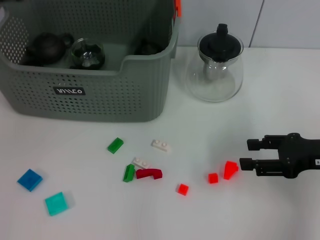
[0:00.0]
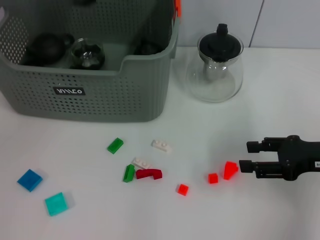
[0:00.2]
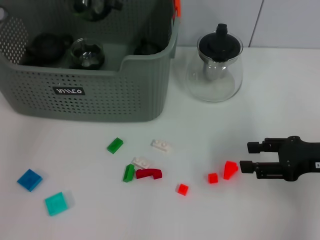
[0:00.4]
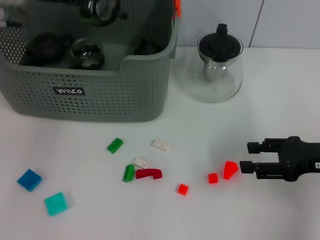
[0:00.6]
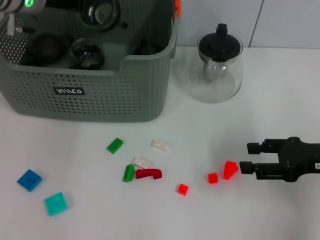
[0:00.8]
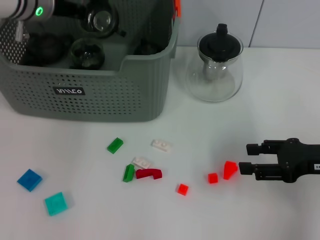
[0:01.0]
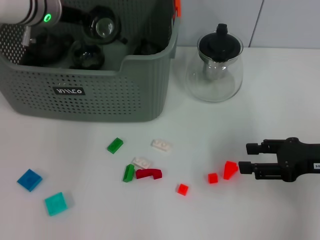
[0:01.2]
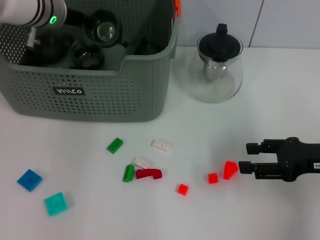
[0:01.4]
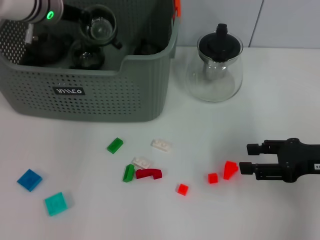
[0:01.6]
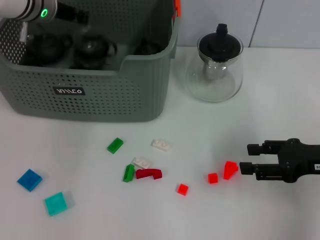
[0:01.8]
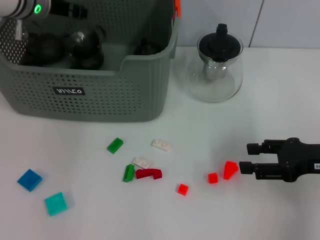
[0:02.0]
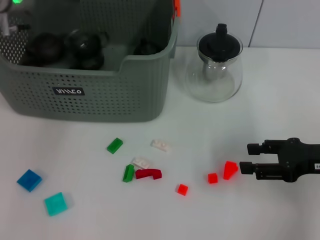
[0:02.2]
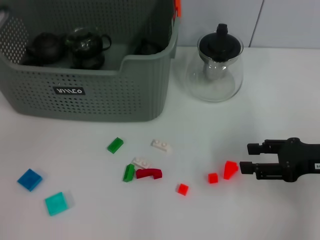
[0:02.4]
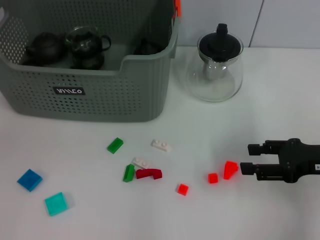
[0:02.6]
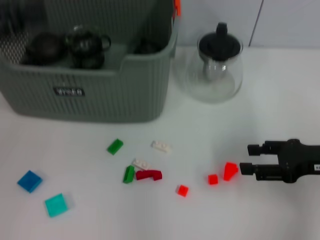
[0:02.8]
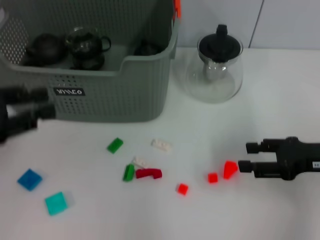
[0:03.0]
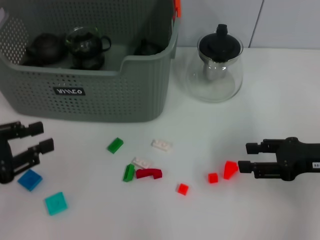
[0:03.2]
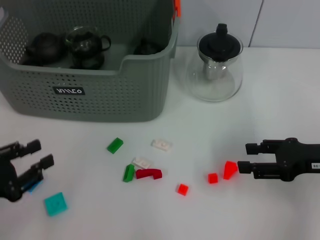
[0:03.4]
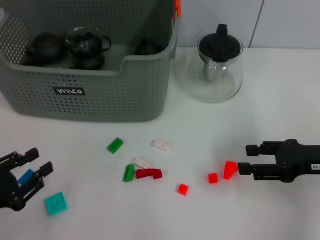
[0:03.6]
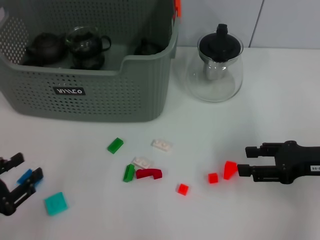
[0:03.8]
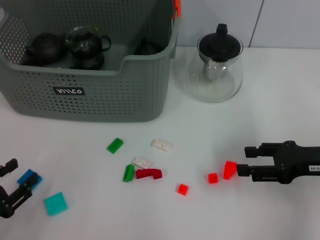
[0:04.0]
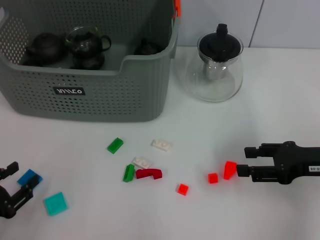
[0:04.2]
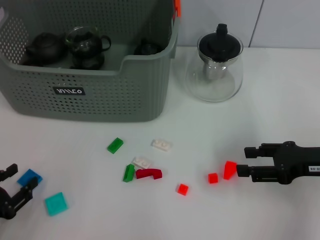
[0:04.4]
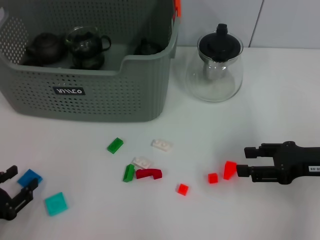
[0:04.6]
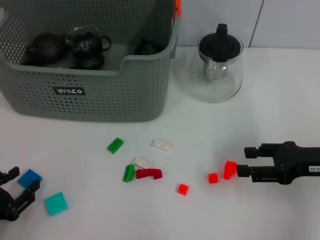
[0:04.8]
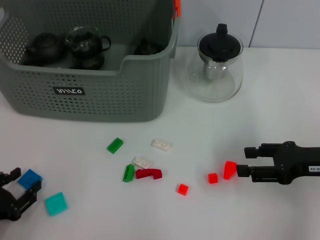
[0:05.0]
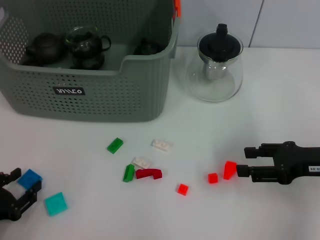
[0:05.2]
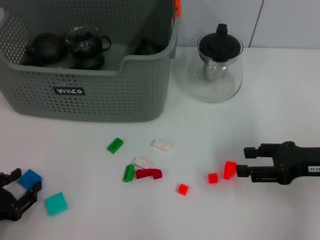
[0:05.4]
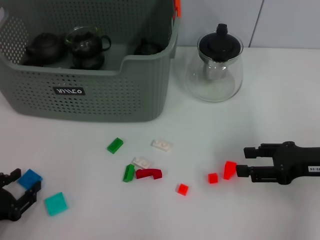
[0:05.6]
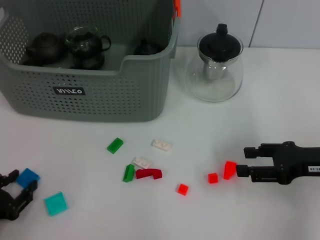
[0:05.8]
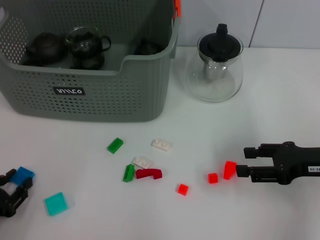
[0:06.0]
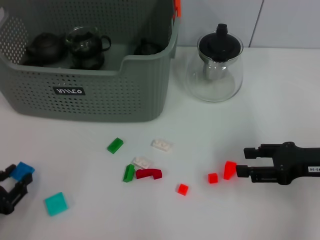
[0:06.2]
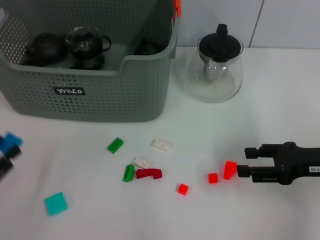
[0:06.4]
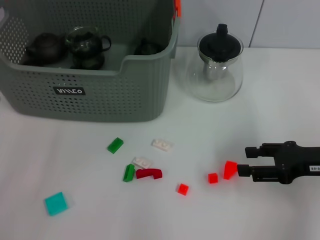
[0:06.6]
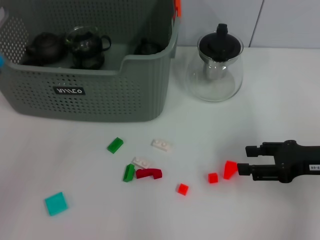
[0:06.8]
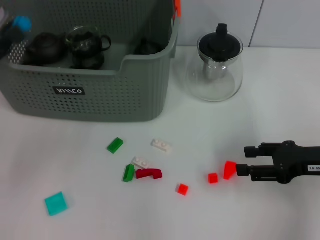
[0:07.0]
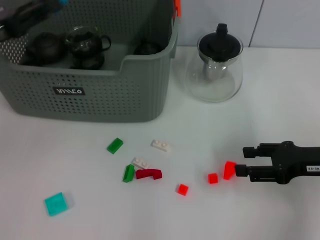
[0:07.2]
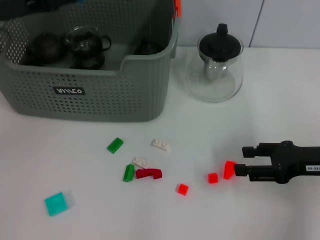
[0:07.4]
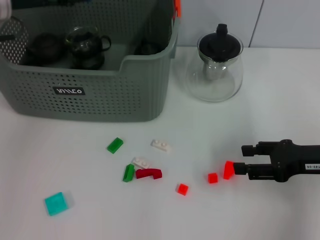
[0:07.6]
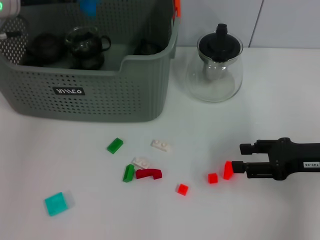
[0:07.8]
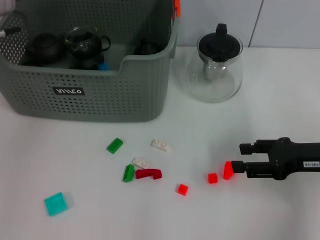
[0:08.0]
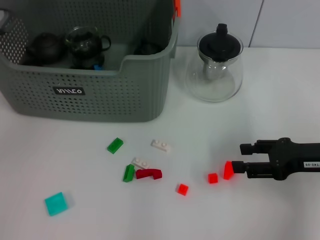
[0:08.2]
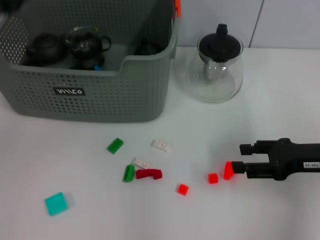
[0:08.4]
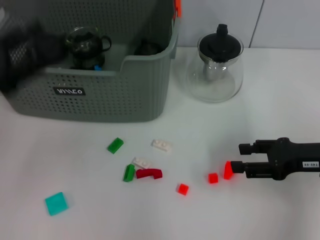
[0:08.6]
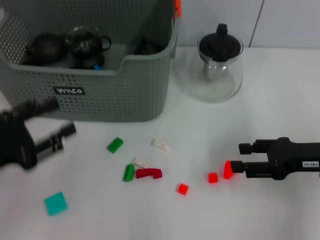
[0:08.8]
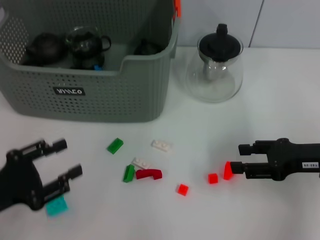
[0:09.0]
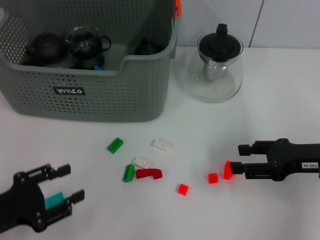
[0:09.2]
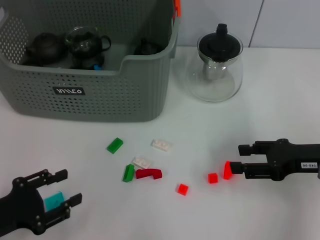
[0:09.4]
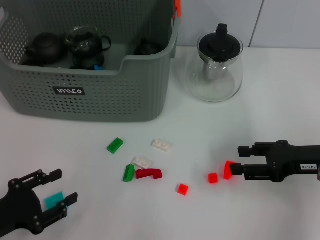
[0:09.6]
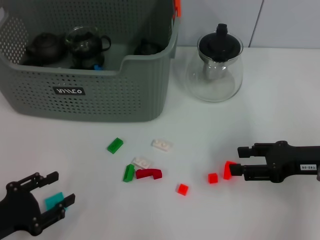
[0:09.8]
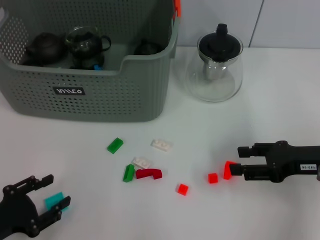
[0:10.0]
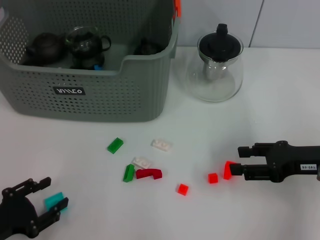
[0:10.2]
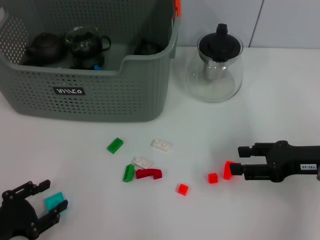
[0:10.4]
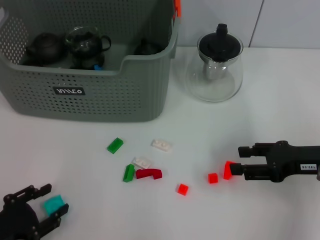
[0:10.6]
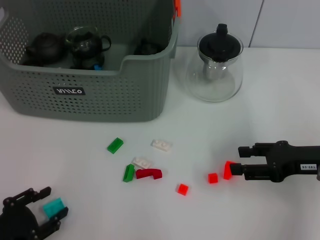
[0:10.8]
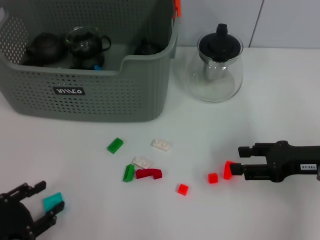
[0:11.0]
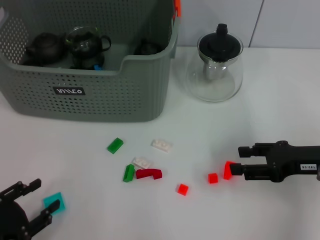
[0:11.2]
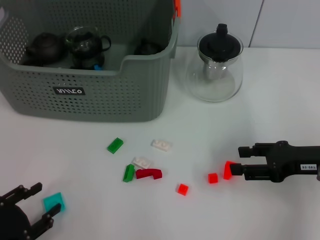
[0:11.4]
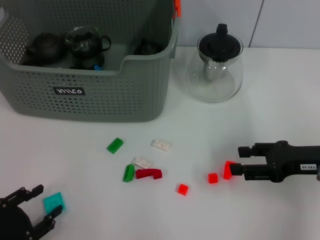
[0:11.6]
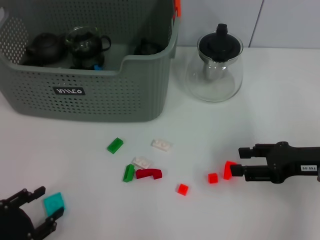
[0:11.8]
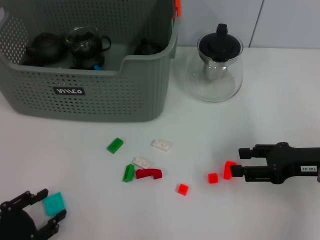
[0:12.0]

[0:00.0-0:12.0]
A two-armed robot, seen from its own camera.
Task of the whole recording: pick up the teacup on the table and place it into the storage bin, pick up the block on the table and place it into the storage bin.
Step, 0:00.0 to 0:06.0: Grasp the dark blue block with left gripper.
Step, 0:06.2 to 0:08.4: Place the dark blue block in the storage box with left gripper.
0:00.0 to 0:01.6: The left gripper goes some 15 cm forward and to the right.
0:01.6 to 0:03.0: The left gripper shifts about 25 cm backward and to the left, and opens its fingers.
0:03.0 to 0:04.4: The left gripper travels downward and backward by some 20 cm.
0:04.4 to 0:06.0: There are only small adjustments of the grippers.
0:06.0 to 0:07.6: The left gripper moves forward and upward, about 35 cm.
0:07.6 to 0:09.0: The left gripper shifts about 30 cm backward and downward.
0:09.0 to 0:10.4: The left gripper goes some 5 cm downward.
0:10.4 to 0:12.0: There are only small adjustments of the grippers.

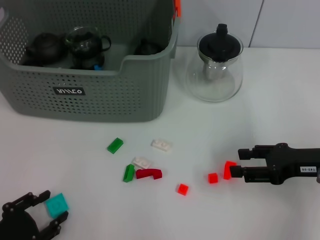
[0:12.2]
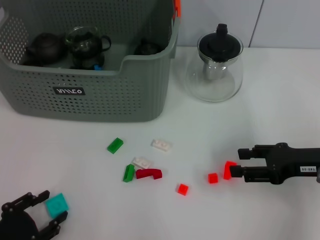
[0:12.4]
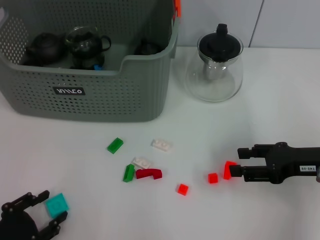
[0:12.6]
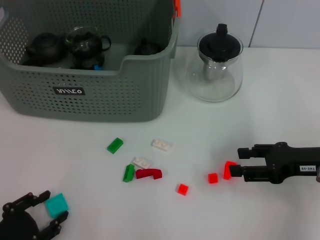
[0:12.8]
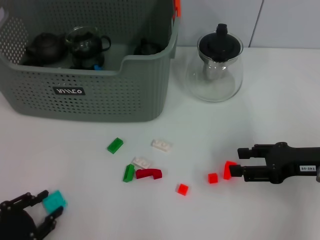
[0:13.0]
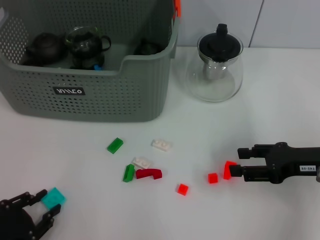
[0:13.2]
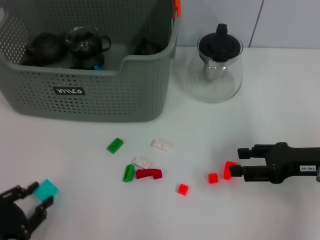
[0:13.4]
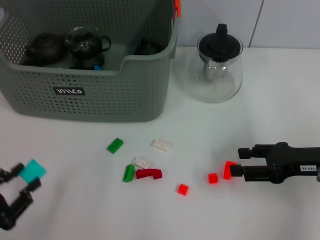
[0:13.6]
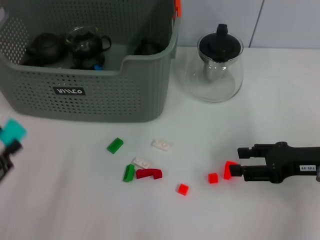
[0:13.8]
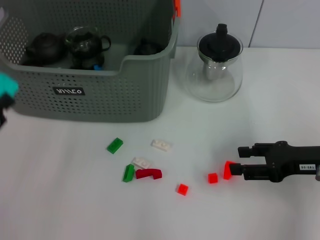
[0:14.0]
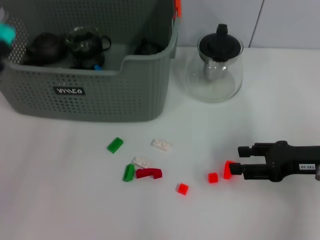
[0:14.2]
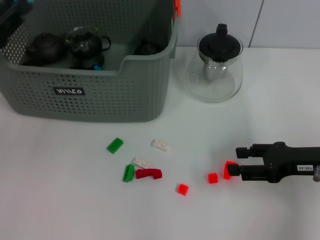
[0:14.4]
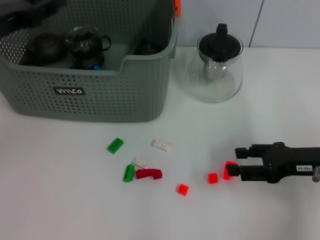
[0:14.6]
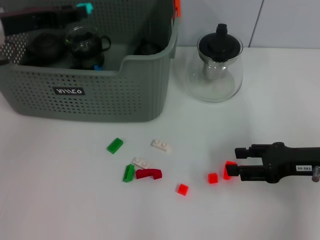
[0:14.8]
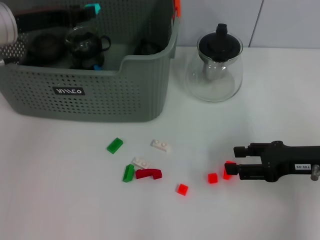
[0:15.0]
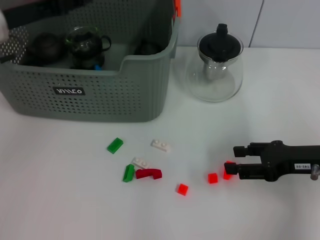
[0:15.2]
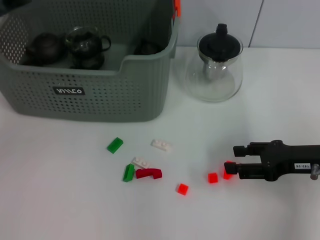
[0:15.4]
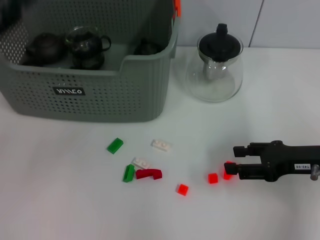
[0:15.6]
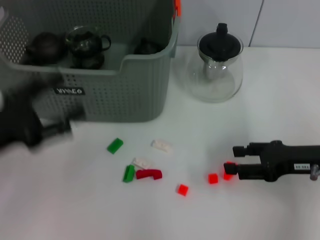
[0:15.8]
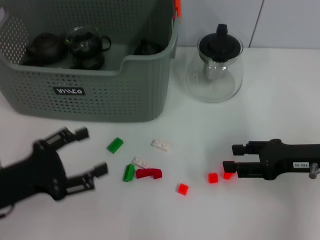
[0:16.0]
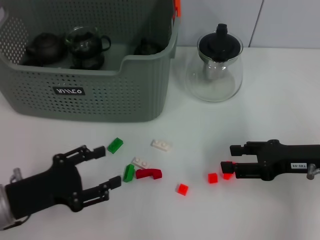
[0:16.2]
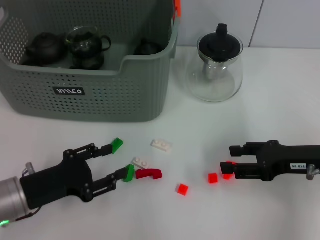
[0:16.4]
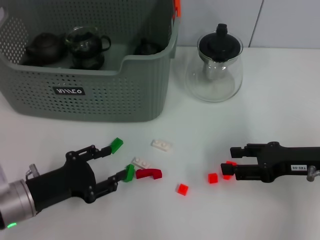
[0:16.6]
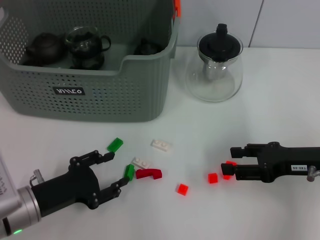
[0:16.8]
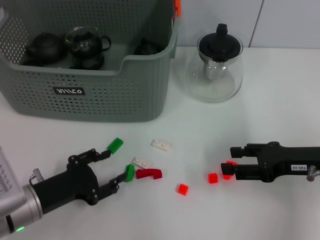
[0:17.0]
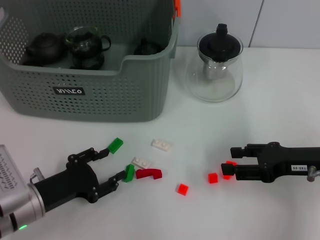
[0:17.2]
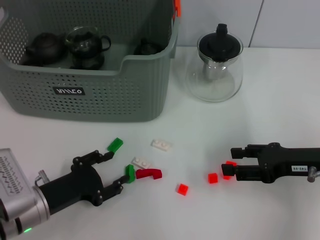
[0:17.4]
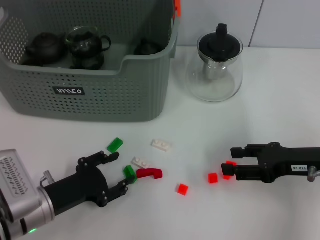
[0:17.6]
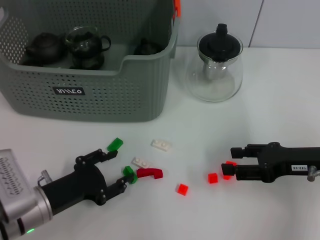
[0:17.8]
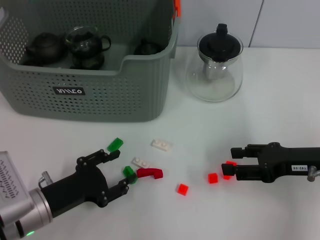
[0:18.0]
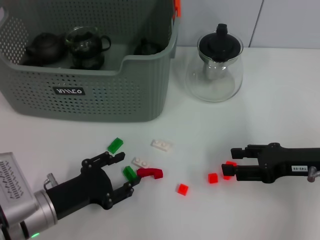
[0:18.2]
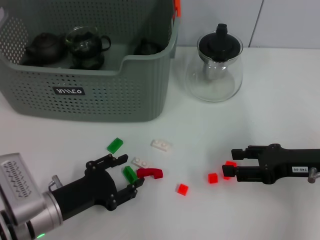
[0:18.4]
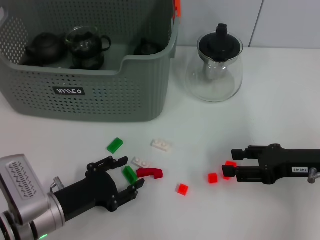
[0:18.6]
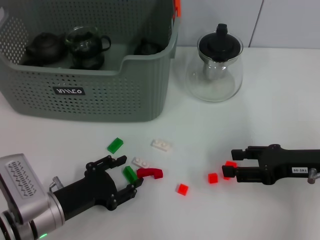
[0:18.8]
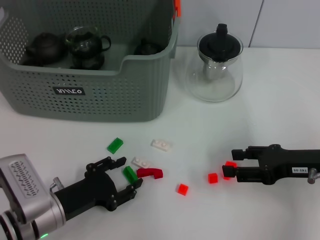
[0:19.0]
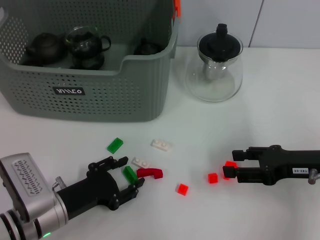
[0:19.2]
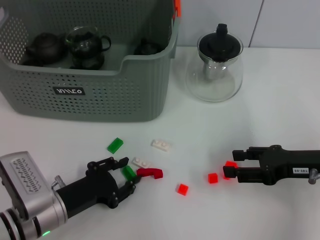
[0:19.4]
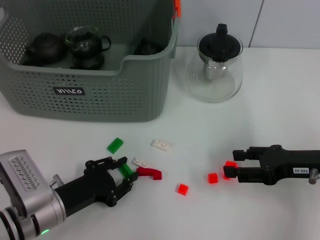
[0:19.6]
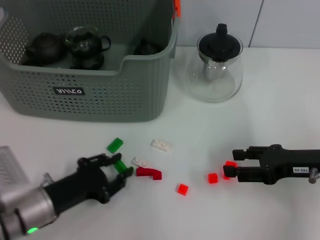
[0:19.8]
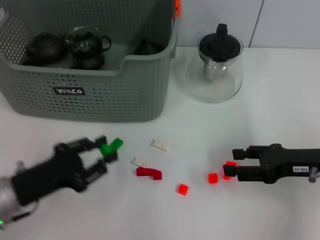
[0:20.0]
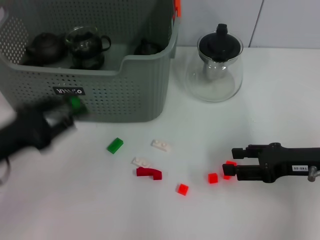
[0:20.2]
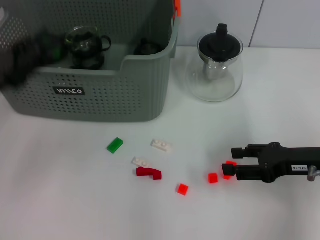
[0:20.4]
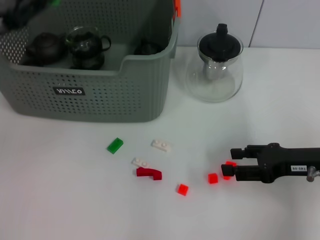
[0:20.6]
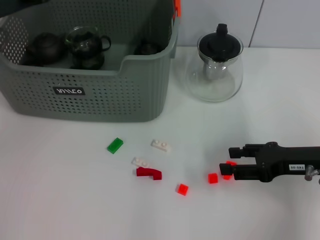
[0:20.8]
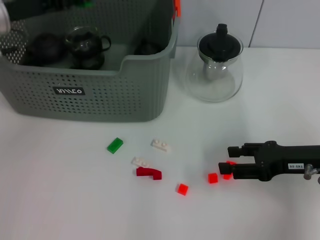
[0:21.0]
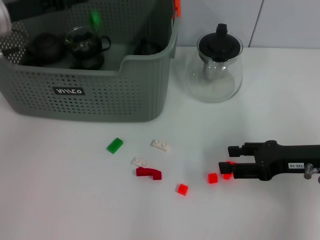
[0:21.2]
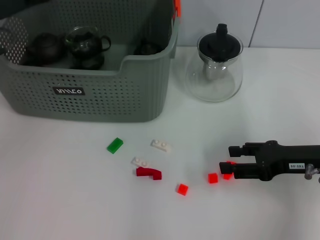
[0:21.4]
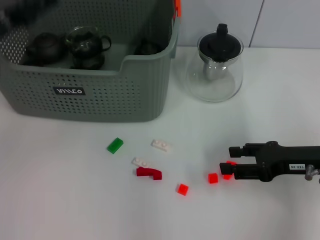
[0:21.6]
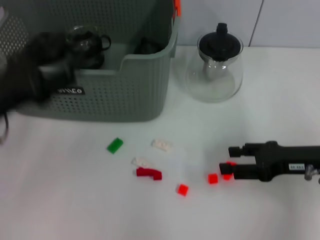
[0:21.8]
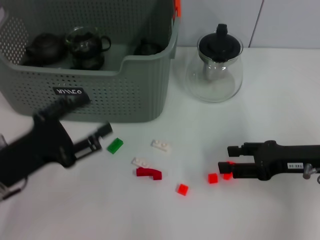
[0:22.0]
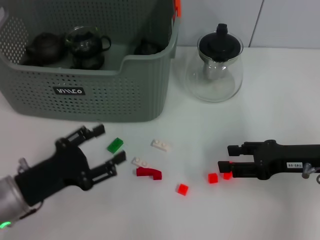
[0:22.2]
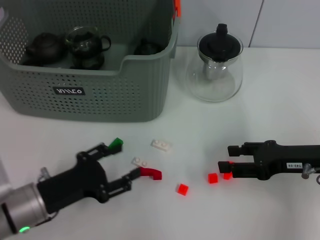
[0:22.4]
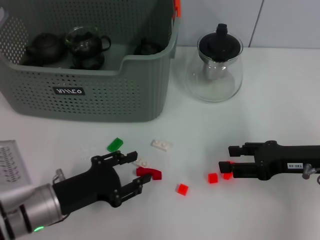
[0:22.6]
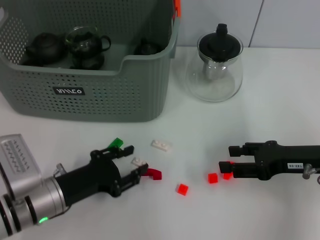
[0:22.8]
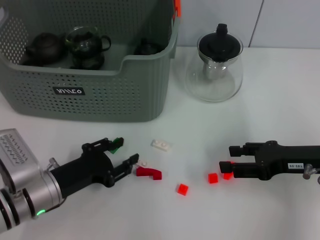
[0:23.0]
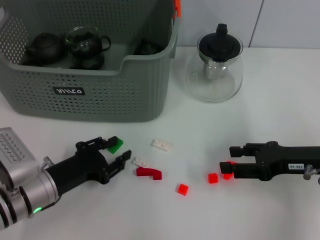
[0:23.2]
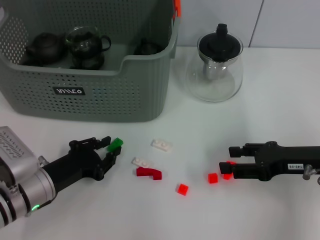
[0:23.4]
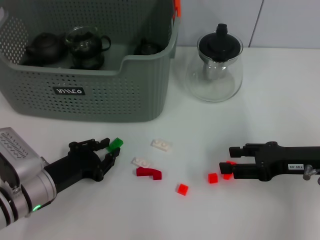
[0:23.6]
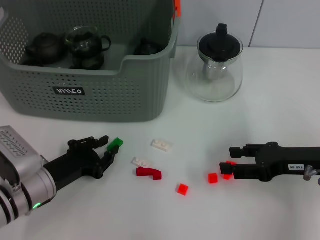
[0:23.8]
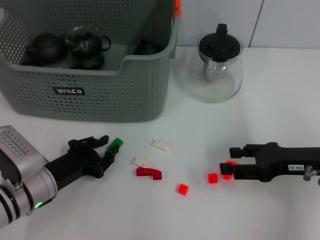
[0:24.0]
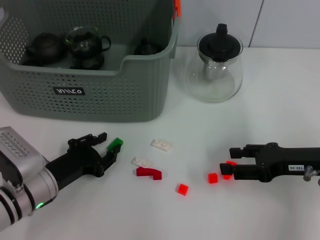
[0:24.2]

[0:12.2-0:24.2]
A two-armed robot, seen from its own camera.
Task of the whole recording: pick up the teacup on the table and place it into the storage bin, pick up the block on the table and place it into the storage bin.
Step, 0:13.4 to 0:15.2: Place the light blue block in the storage box with left gripper.
Step, 0:15.4 to 0:19.6: Grasp the green block with left gripper.
Step, 0:20.0 to 0:21.2: Place the green block in the storage box with left gripper.
0:12.2 to 0:13.8: The left gripper goes some 5 cm upward.
0:13.8 to 0:15.2: The left gripper travels forward and upward by roughly 30 cm.
0:15.2 to 0:16.6: The left gripper moves downward and backward, about 25 cm.
0:16.6 to 0:19.8: The grippers move only a little.
0:19.8 to 0:21.2: The left gripper travels upward and forward by about 25 cm.
0:21.2 to 0:22.6: The left gripper goes approximately 25 cm downward and backward.
0:22.6 to 0:24.2: The left gripper closes.
